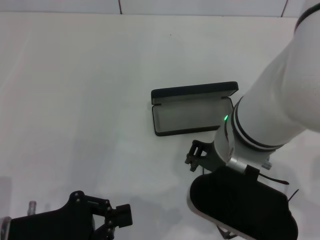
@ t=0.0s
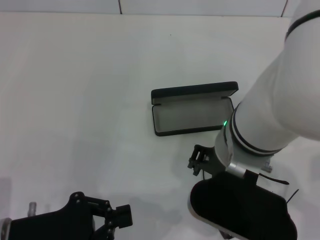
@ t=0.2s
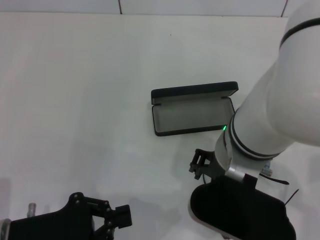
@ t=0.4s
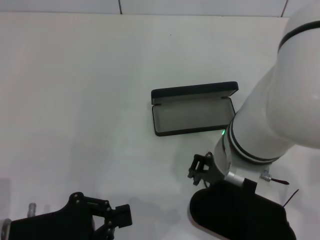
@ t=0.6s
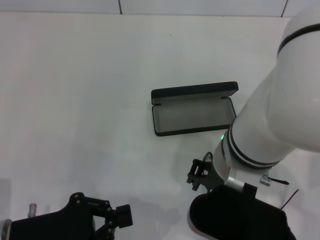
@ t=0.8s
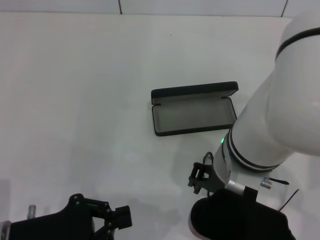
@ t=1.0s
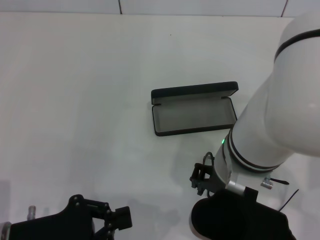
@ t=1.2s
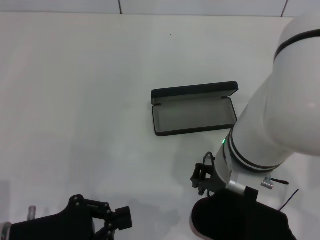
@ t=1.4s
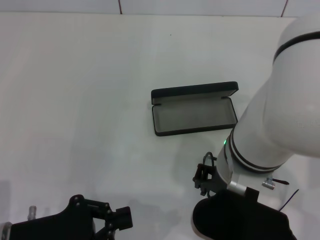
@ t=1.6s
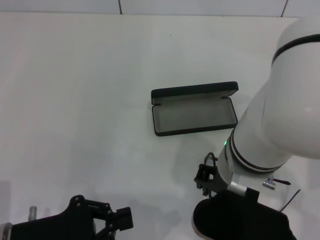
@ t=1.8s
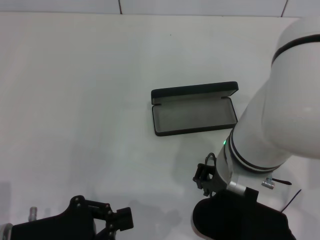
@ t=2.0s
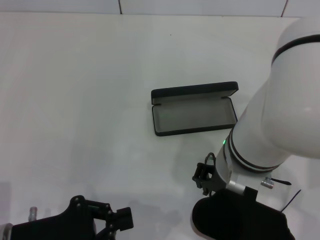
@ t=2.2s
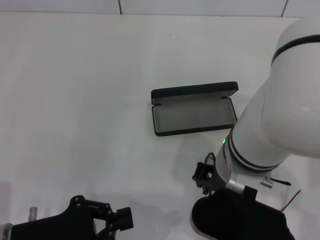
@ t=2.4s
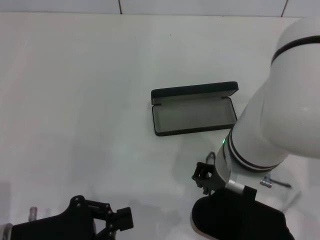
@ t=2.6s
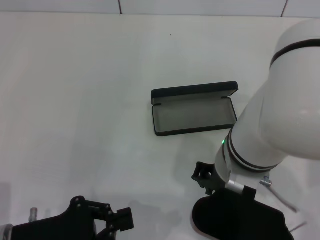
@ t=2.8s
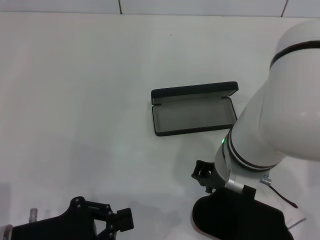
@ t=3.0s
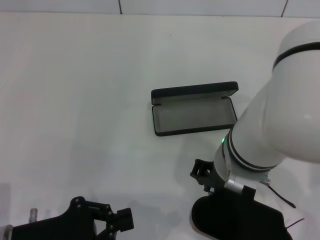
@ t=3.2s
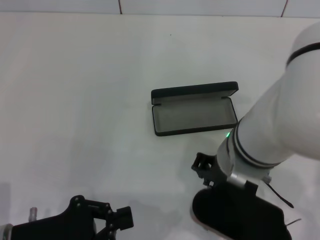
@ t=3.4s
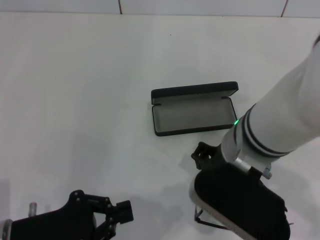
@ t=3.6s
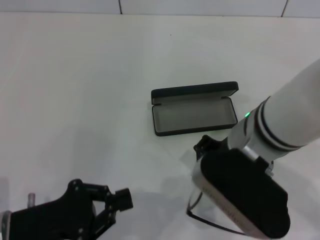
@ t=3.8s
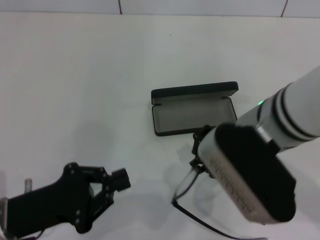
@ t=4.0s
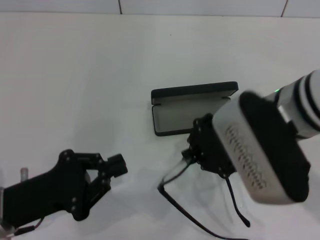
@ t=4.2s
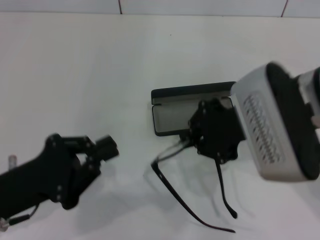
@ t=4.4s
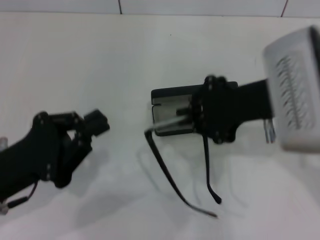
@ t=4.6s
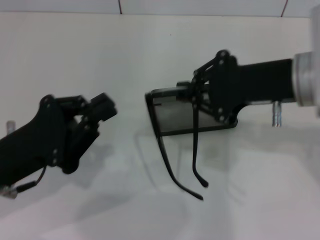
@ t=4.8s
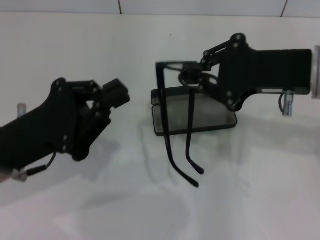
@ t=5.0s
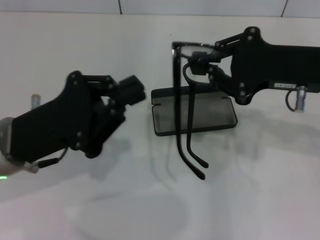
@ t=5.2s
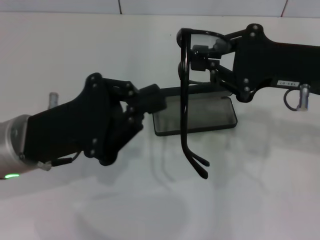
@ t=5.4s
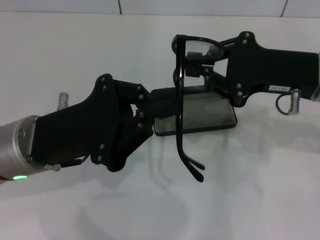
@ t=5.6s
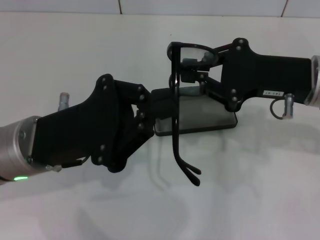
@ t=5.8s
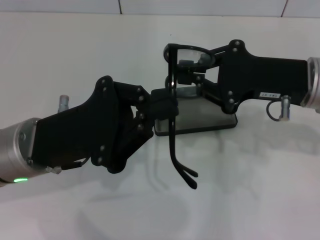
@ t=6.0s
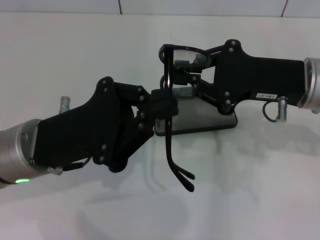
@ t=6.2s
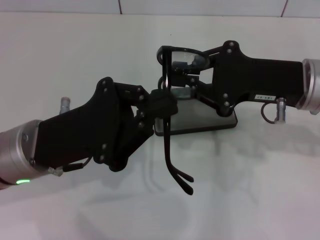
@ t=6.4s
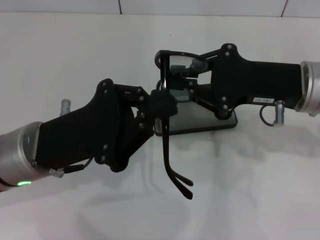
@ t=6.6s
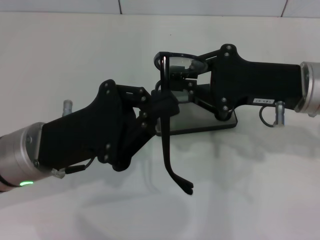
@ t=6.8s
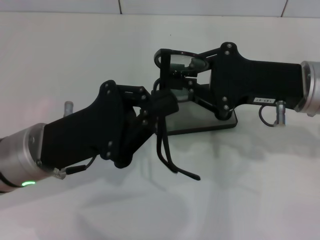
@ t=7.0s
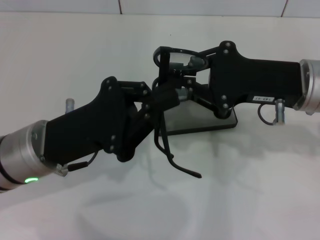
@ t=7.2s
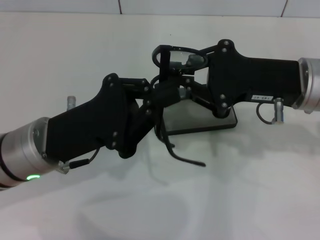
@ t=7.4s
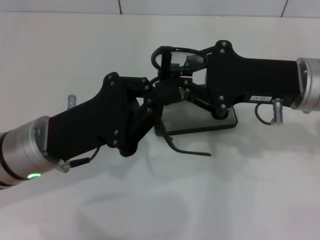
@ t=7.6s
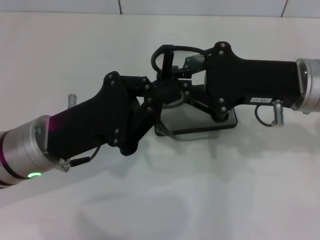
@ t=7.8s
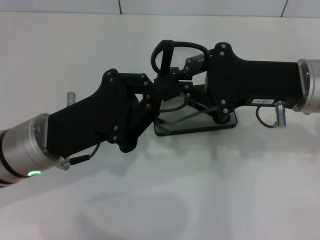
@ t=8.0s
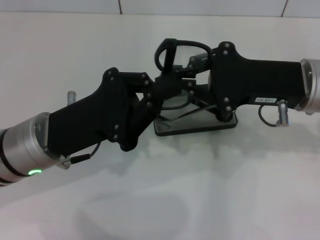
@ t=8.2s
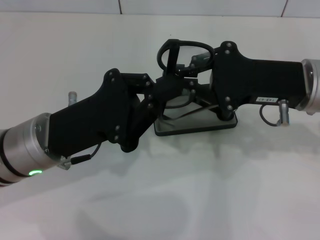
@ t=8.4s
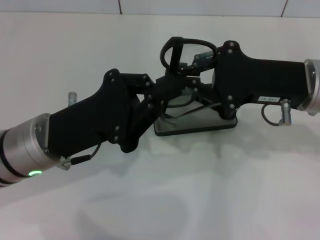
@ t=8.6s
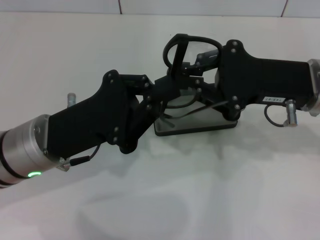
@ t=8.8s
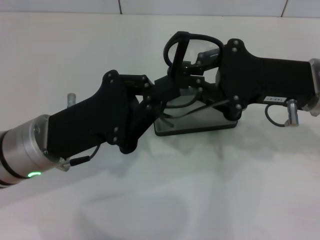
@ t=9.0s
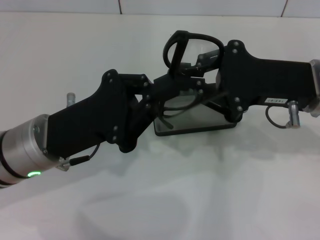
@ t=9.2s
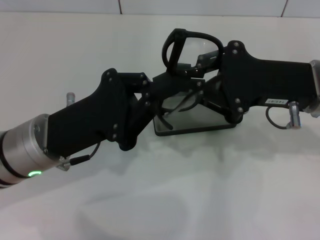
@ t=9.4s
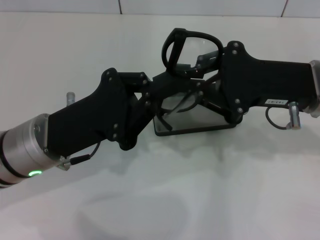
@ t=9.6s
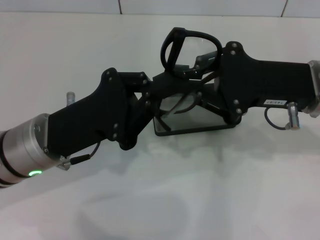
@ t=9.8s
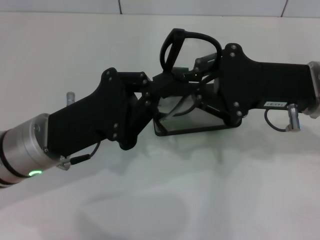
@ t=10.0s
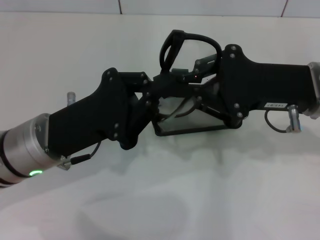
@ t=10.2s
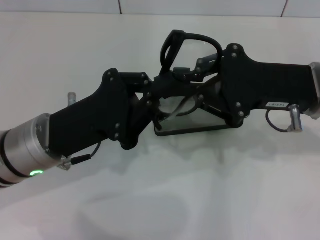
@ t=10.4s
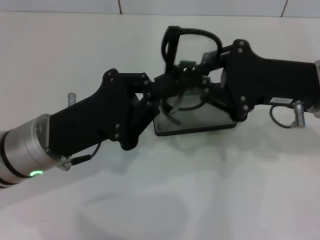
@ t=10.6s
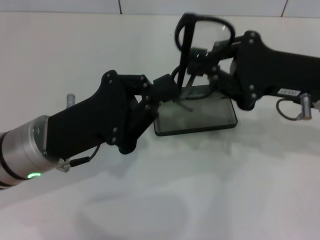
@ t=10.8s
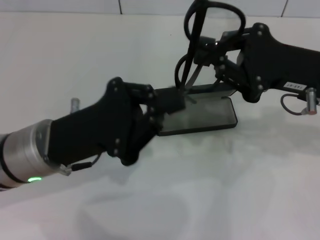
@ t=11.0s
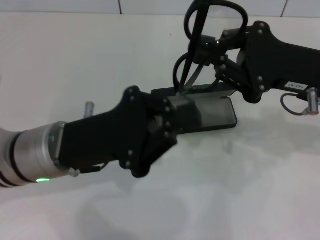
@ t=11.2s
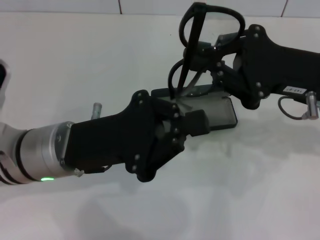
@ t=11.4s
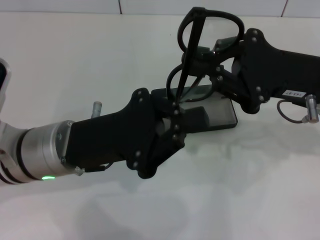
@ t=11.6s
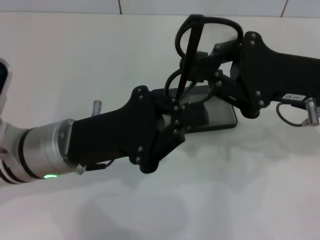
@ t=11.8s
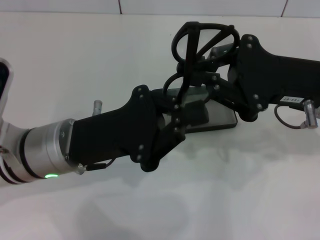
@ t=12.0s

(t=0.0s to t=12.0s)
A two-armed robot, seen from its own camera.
Step, t=0.0s - t=3.0s: Grab the eyeglass frame with your right hand.
t=0.0s - t=1.6s: The grippers make only small movements.
t=1.6s - t=3.0s: The two grippers keep their place.
t=3.0s - t=4.4s: The right gripper travels to the right by approximately 5 cm.
t=4.4s - t=6.0s: The right gripper shifts approximately 5 cm to the right. Meanwhile the left gripper is displaced to the right and forward by roughly 10 cm.
t=6.0s - t=7.6s: The grippers stay close to where they were, moving slightly.
t=7.6s - t=9.0s: Neither gripper changes place.
t=9.0s - t=10.4s: Both grippers stay put.

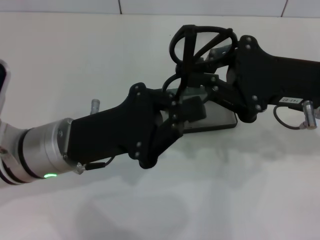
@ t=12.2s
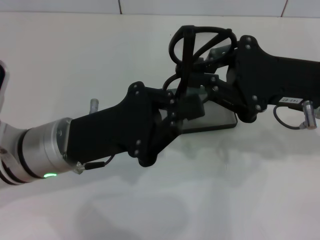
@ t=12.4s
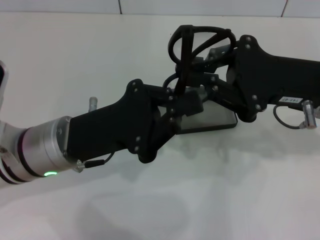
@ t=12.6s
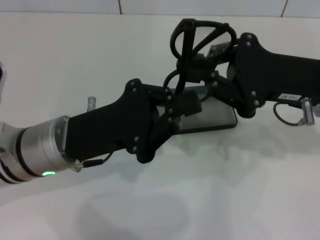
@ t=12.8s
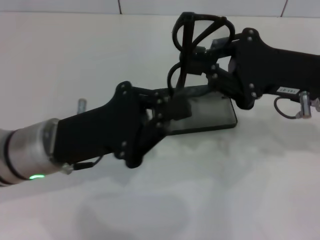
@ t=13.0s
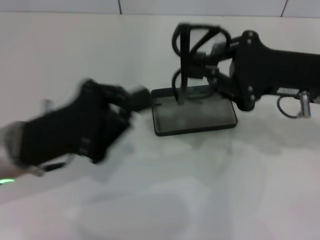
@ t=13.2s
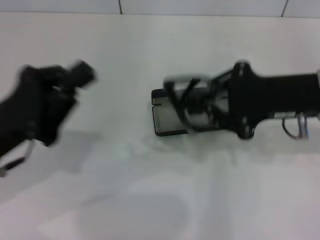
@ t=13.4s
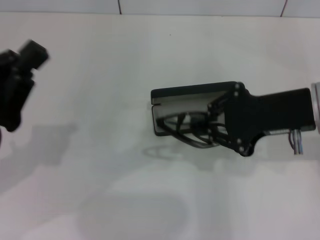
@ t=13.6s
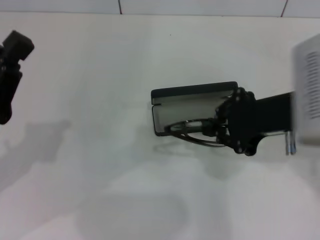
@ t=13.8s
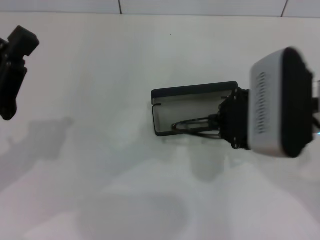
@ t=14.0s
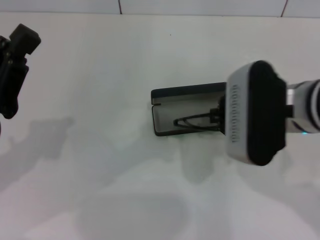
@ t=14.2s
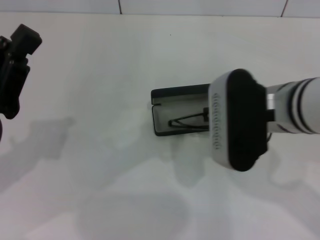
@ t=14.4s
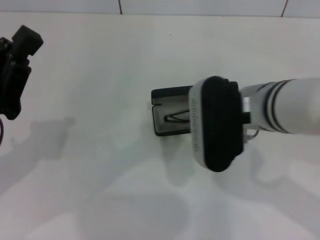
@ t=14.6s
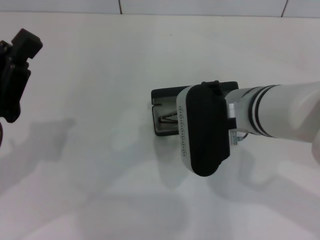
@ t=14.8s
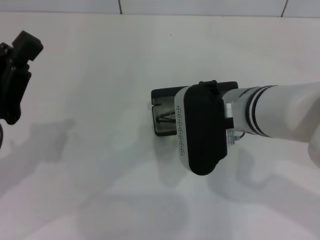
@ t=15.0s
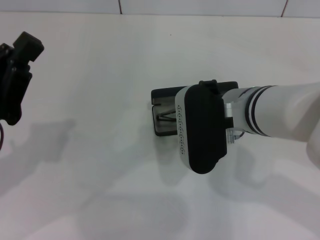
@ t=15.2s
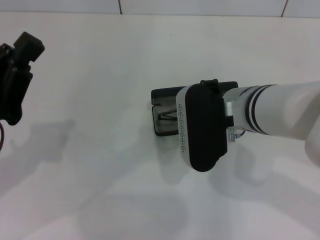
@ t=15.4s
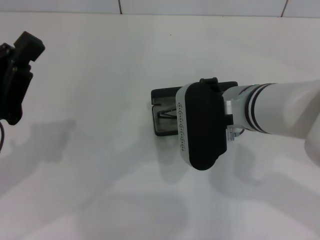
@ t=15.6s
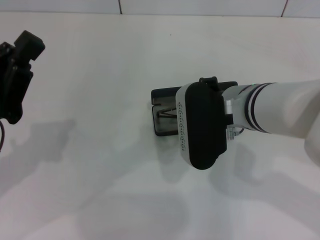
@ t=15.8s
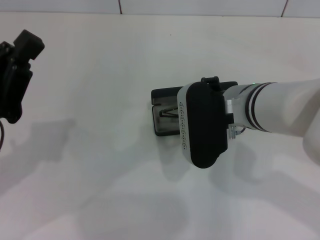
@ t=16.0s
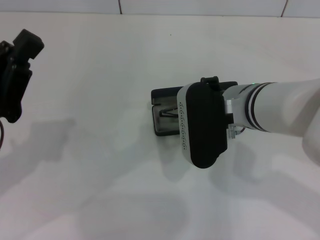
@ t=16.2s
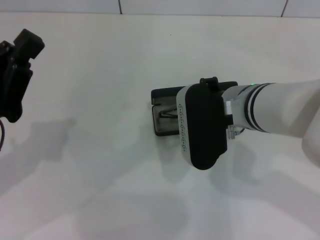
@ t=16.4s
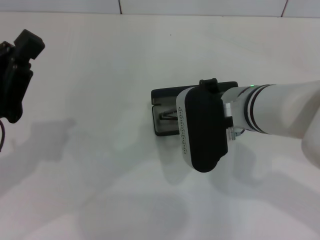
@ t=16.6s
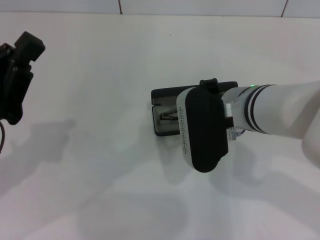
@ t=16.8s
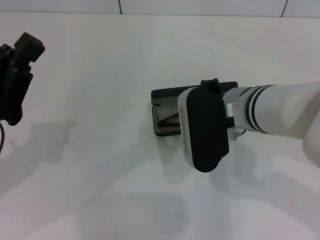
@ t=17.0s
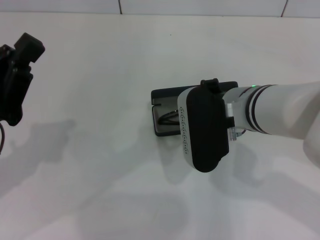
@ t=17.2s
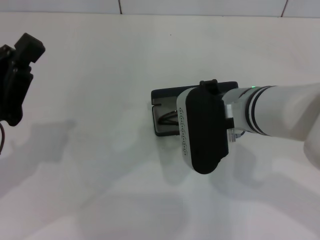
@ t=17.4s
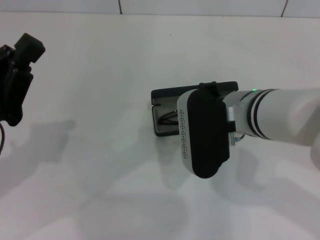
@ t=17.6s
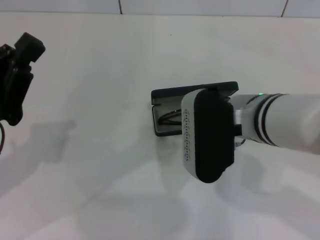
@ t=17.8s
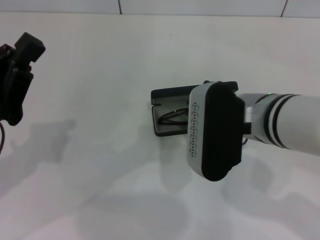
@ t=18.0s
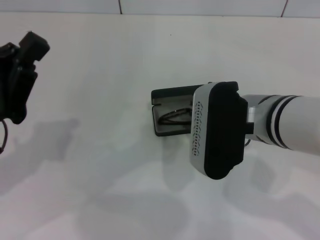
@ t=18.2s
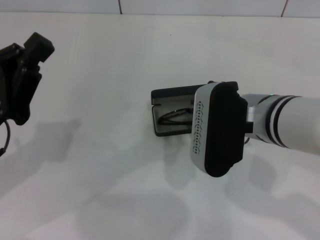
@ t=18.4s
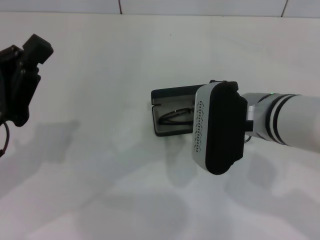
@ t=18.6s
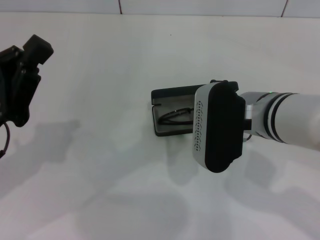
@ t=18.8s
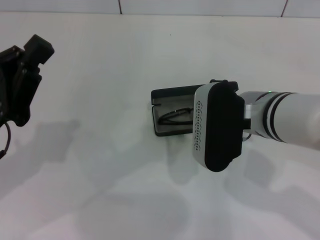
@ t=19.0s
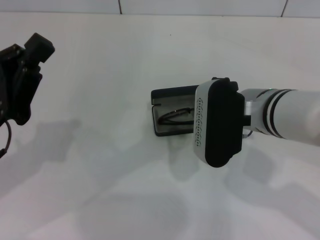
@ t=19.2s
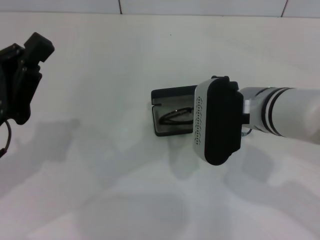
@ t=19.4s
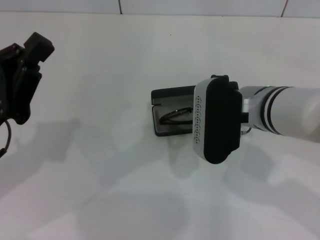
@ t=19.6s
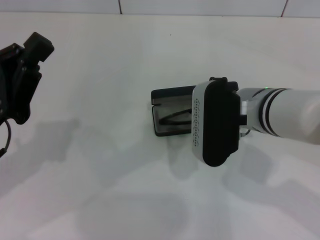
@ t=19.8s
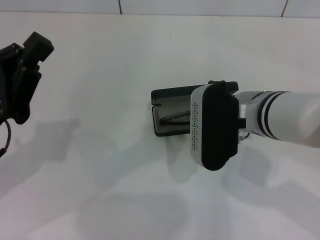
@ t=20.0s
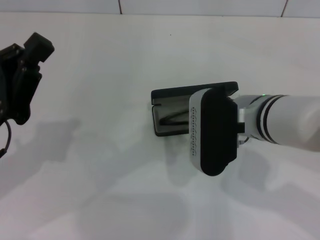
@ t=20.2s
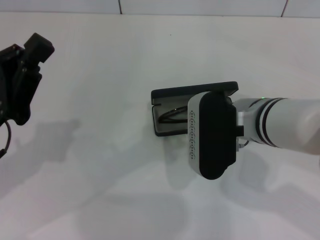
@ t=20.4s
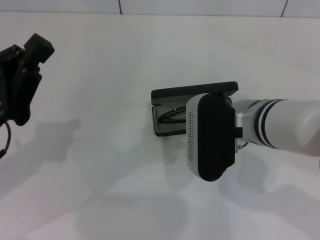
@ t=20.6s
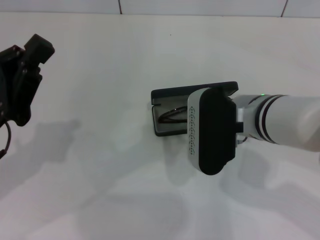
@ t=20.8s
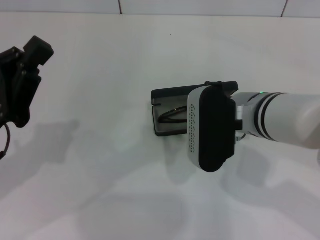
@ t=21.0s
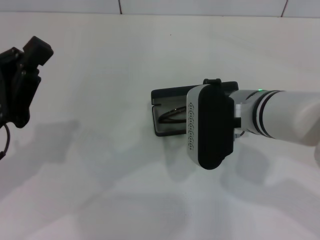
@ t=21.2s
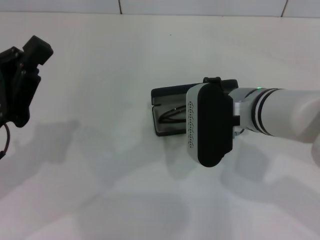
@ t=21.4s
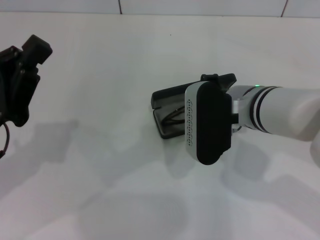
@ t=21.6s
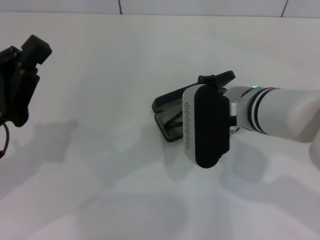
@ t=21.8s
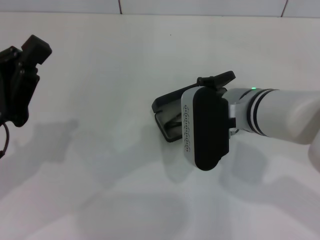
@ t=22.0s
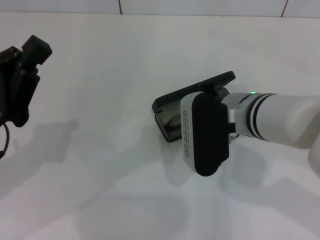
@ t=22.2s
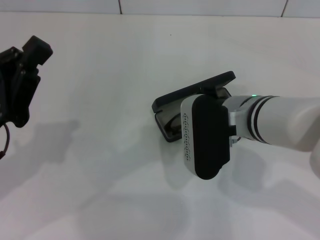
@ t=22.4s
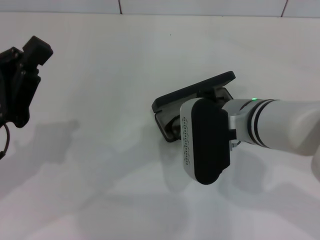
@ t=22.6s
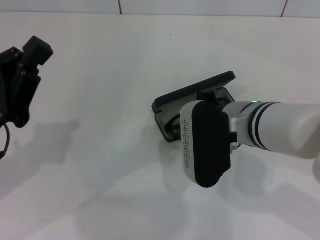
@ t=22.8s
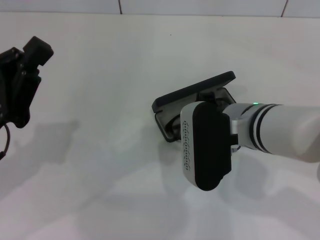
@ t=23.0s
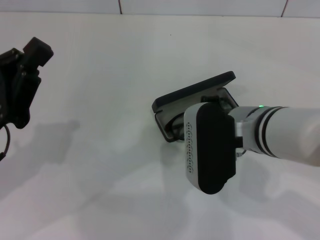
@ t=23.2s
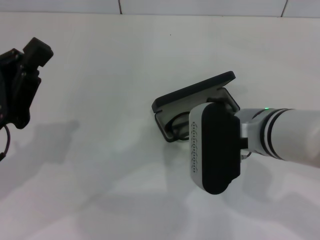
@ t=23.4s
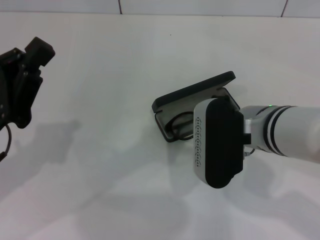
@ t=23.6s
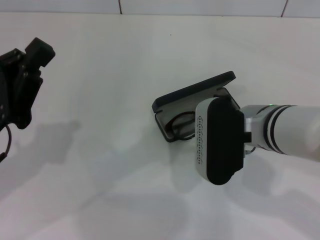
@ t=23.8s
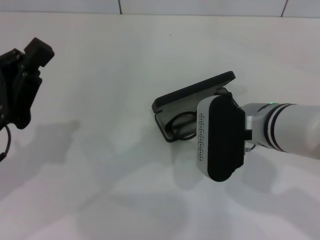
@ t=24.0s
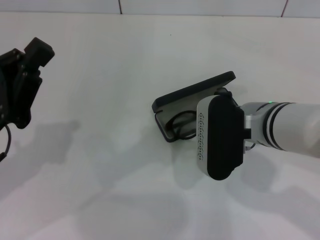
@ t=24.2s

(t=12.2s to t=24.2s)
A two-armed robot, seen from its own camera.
Step, t=12.2s - t=18.0s: Put the glasses into the case with your right hand.
t=12.2s - t=13.8s: The left gripper shifts some 10 cm to the left.
t=13.8s - t=15.2s: The right gripper travels to the left by about 10 cm.
t=15.2s - t=16.6s: Both grippers stay about where they are.
t=16.6s - t=21.2s: The grippers stay close to where they were, moving slightly.
t=21.2s - t=22.6s: Both grippers stay about where they are.
t=22.6s - t=24.2s: There are only small adjustments of the grippers.
